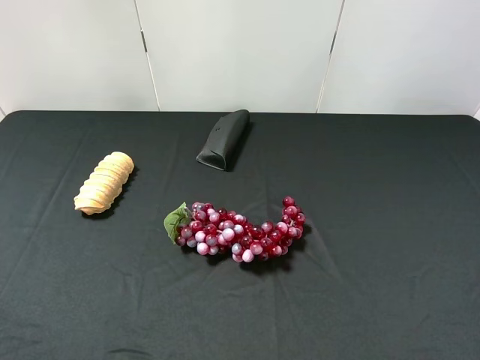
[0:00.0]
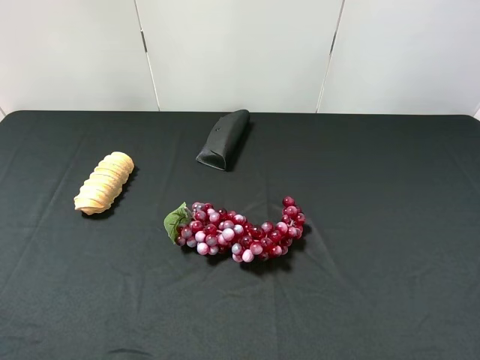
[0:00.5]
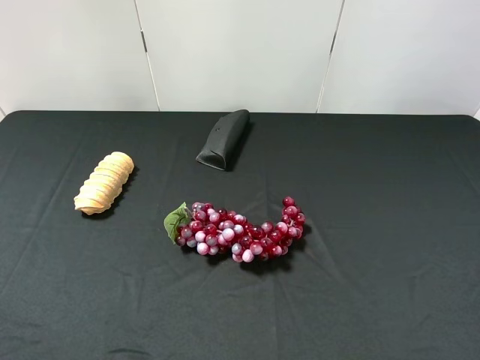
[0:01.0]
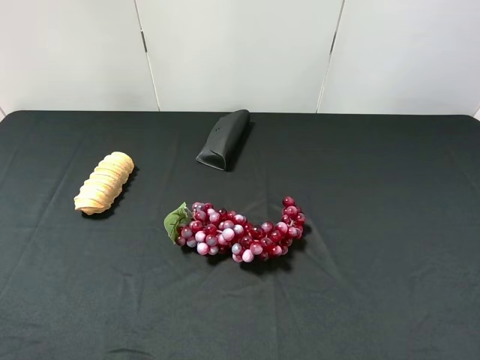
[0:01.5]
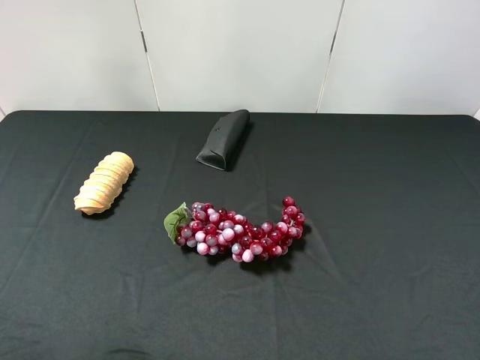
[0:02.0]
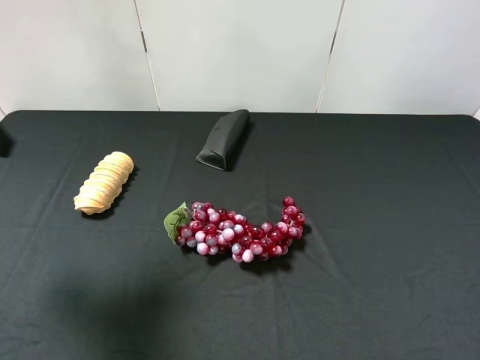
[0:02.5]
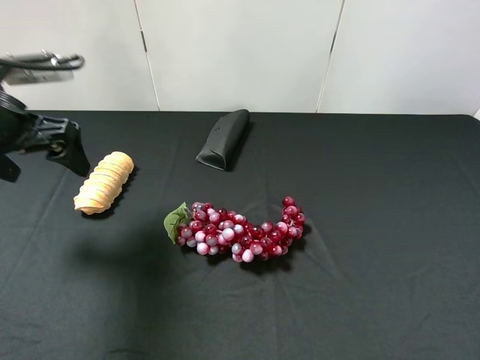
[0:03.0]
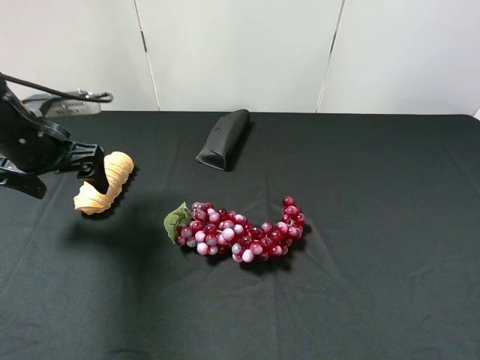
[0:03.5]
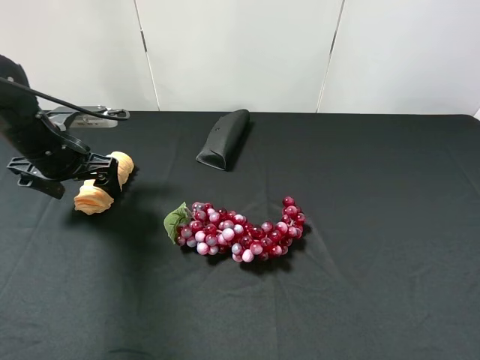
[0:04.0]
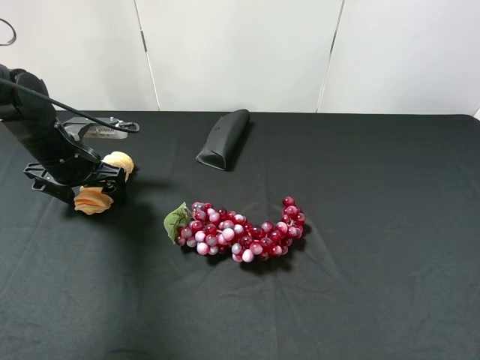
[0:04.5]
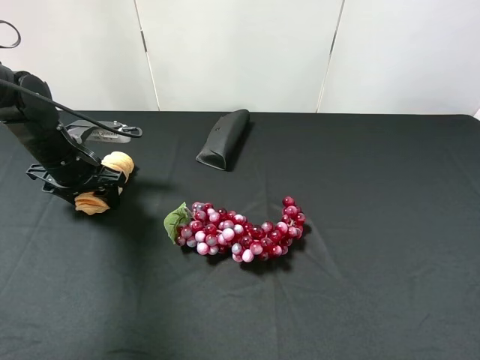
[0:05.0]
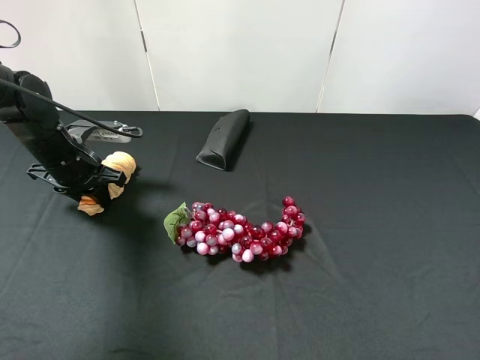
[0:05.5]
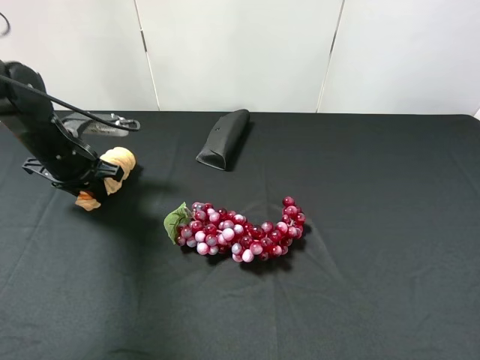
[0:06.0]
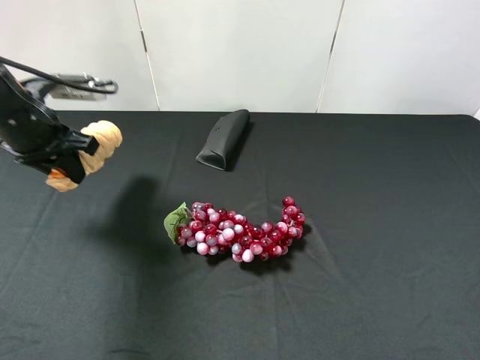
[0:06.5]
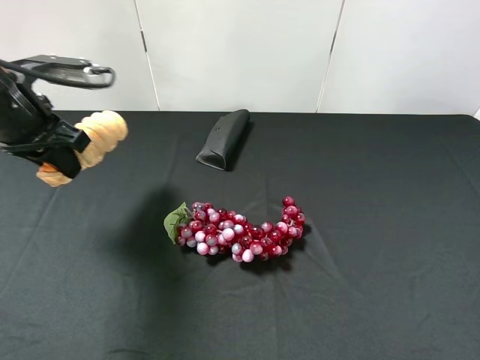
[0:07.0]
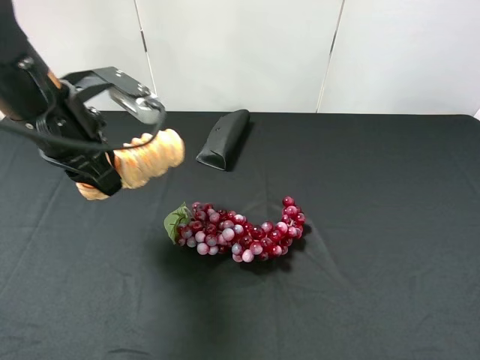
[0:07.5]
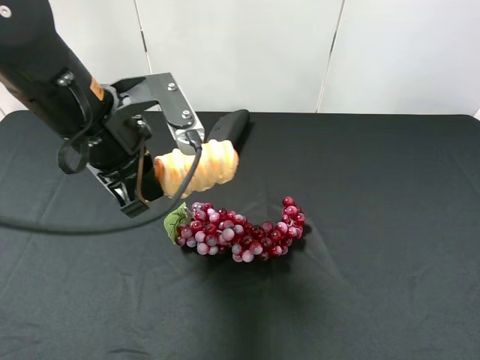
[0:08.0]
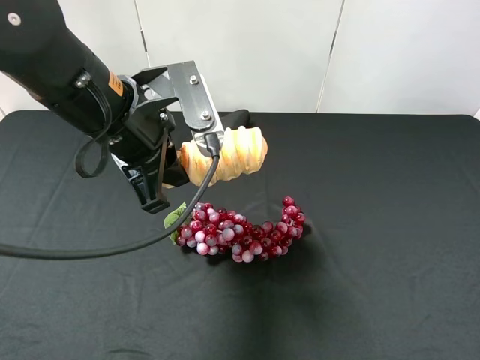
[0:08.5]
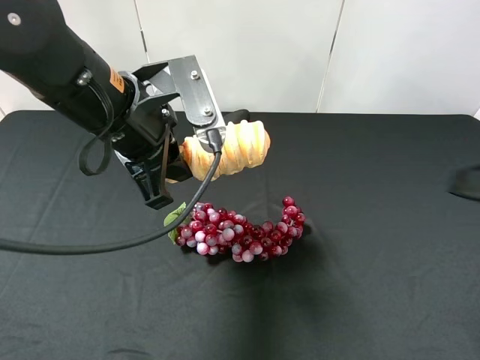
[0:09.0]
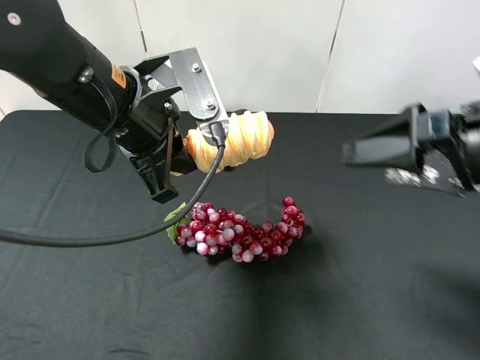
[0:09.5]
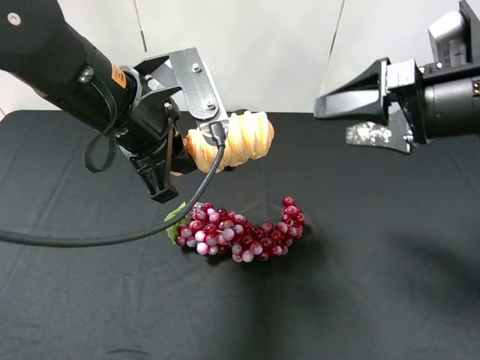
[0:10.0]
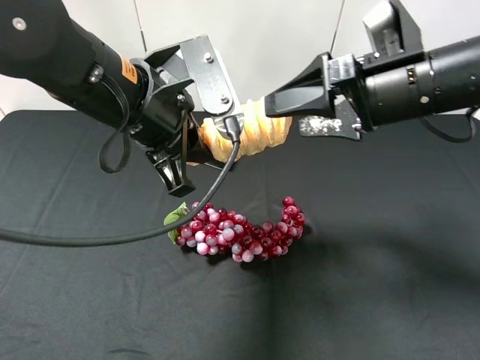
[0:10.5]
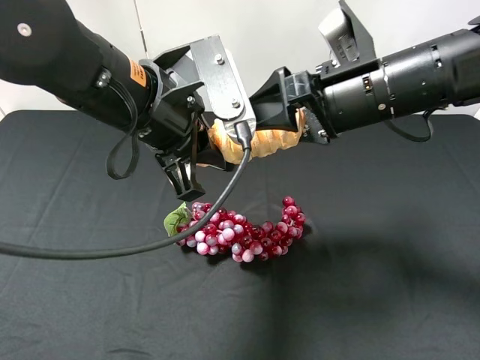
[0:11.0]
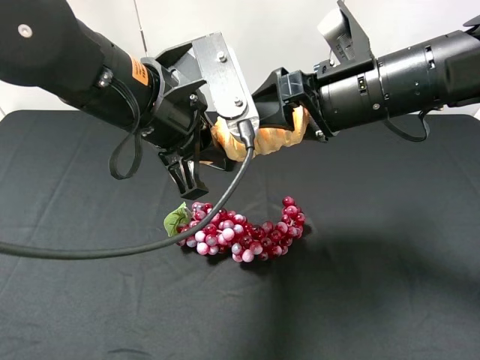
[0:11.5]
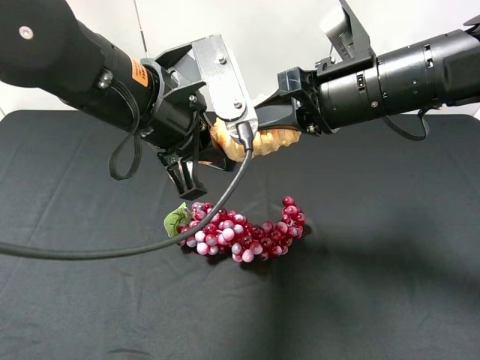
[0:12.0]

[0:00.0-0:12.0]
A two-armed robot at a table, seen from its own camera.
Task of the whole recording: use the left gripper to pick up the item and transfer it from the left gripper to the right gripper.
0:02.0 to 0:04.0: The left gripper is displaced forward and downward by about 30 cm.
0:04.0 to 0:06.0: The left gripper closes its fingers.
0:06.0 to 0:08.0: The left gripper is displaced to the right, upward and backward by roughly 20 cm.
0:08.0 to 0:10.0: The right gripper shifts about 25 cm forward.
0:10.0 to 0:12.0: The right gripper is displaced to the left by about 10 cm, and closes up.

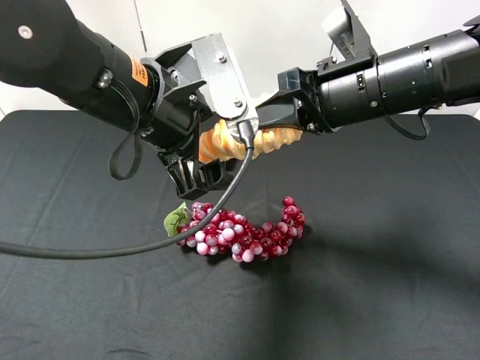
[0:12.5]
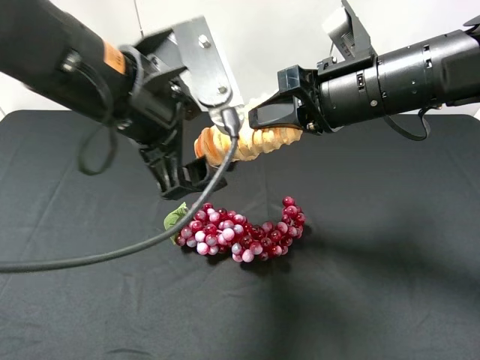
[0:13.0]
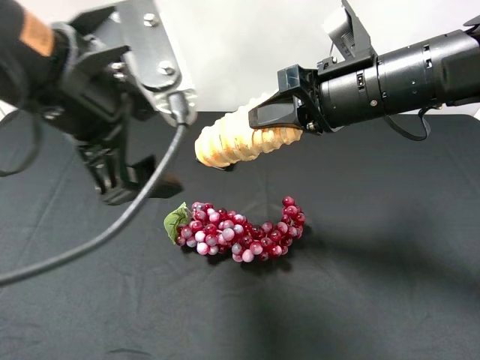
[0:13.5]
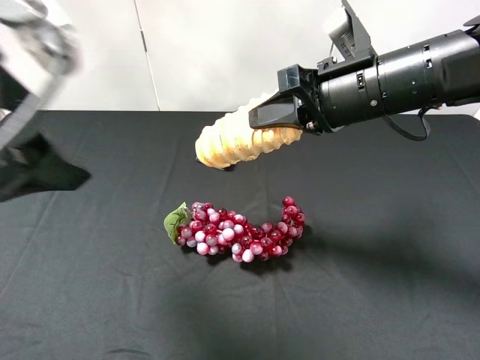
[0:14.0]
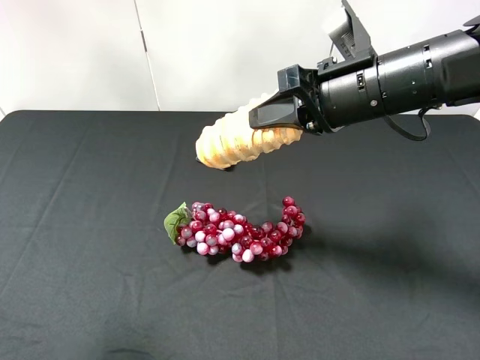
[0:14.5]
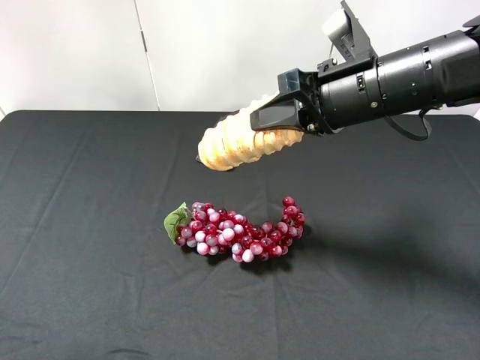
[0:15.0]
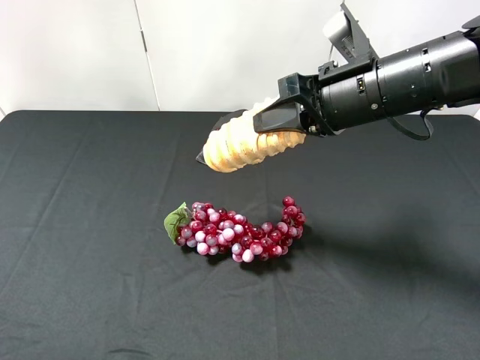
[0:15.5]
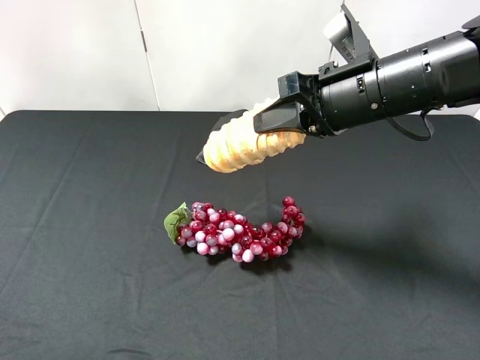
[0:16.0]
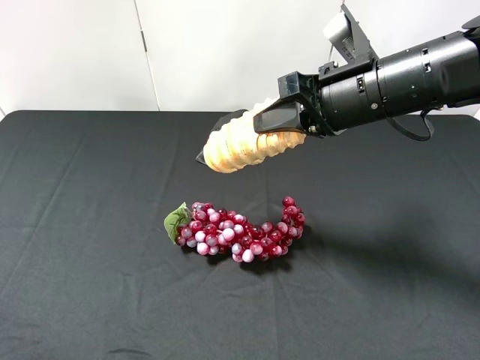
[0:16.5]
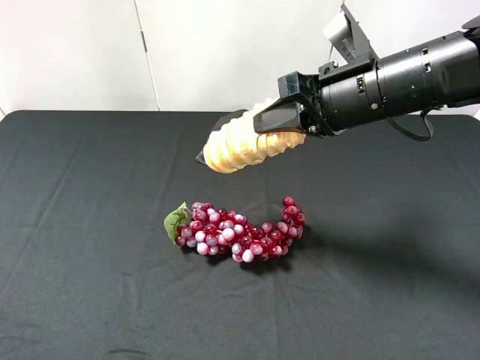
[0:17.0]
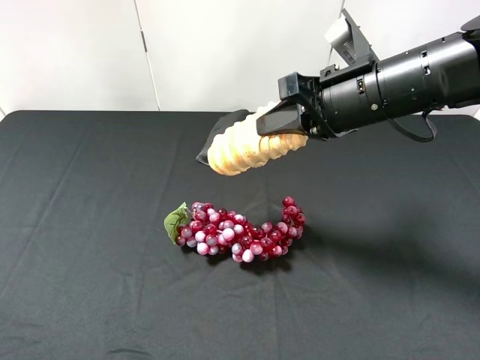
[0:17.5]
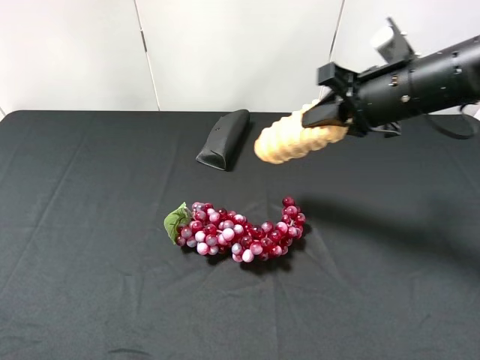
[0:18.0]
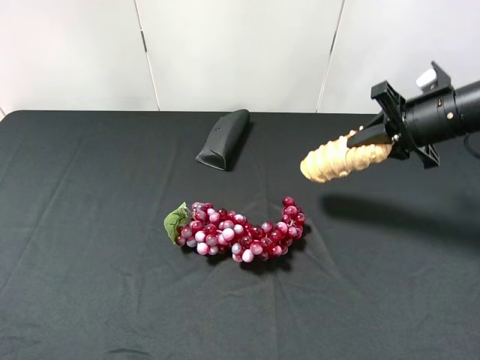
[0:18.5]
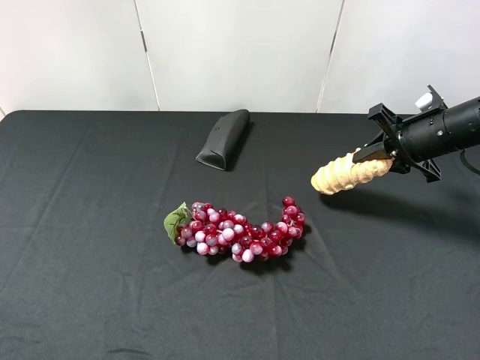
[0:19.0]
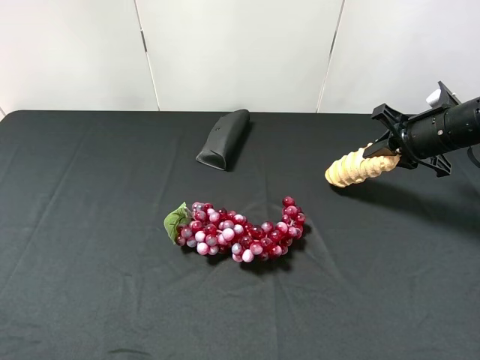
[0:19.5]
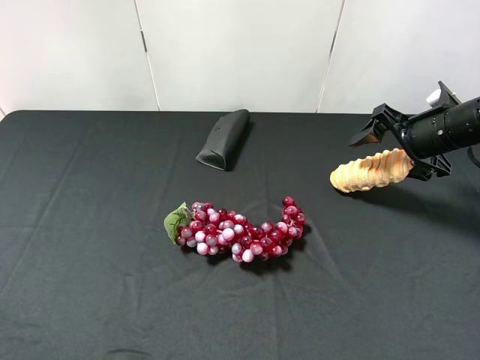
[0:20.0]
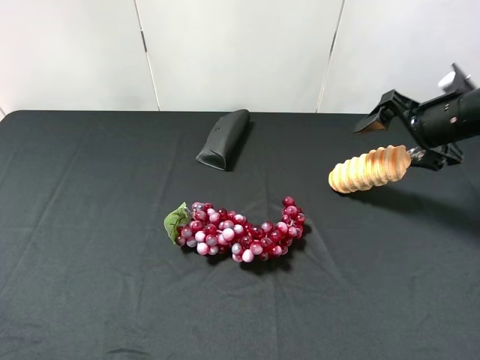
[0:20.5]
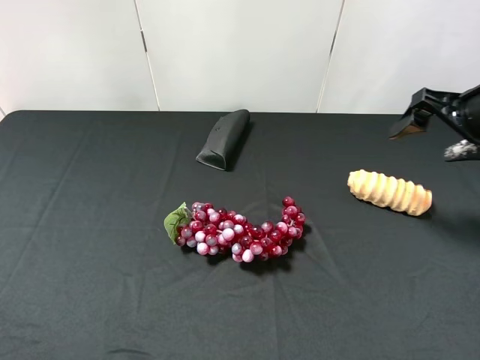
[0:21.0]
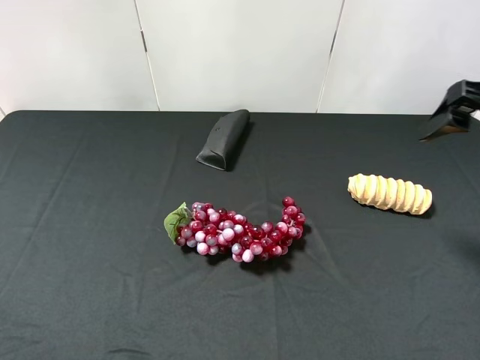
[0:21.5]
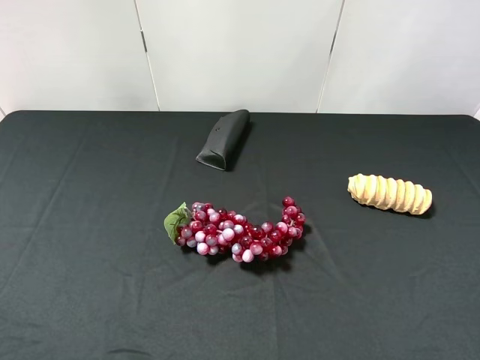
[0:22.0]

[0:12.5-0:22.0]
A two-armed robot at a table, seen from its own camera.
Task of the whole recording: use the left gripper to pick up the item and transfer it from the left gripper to the right gripper.
0:12.5 to 0:14.5: The left gripper travels to the left, backward and upward by roughly 25 cm.
0:14.5 to 0:16.5: The left gripper heads downward and backward, covering roughly 10 cm.
0:16.5 to 0:18.0: The right gripper shifts approximately 5 cm to the right.
0:18.0 to 0:20.0: The right gripper shifts roughly 15 cm to the right and downward, and opens its fingers.
0:20.0 to 0:22.0: The right gripper heads backward and upward, covering roughly 25 cm.

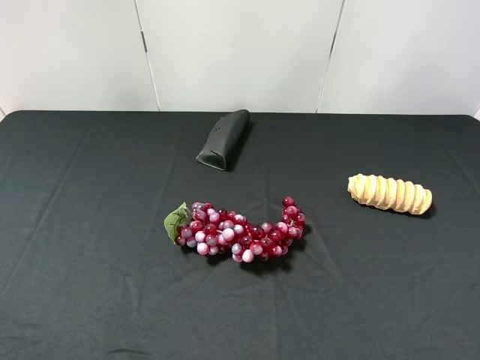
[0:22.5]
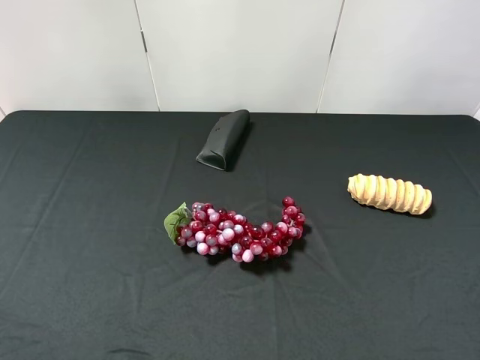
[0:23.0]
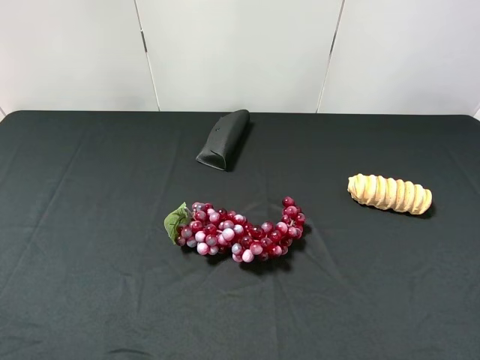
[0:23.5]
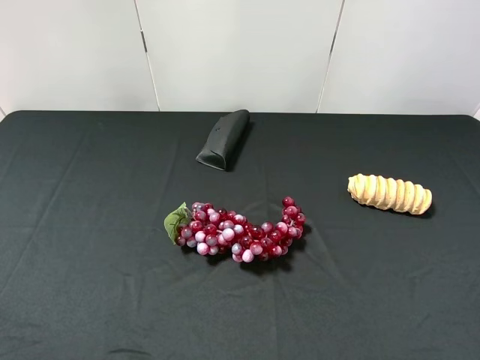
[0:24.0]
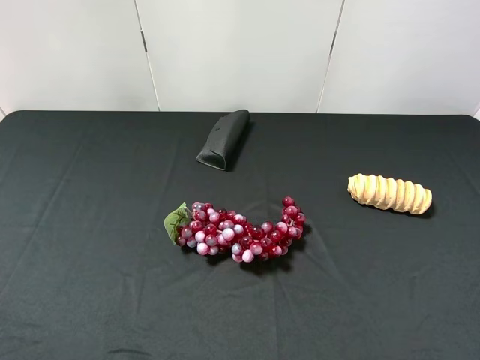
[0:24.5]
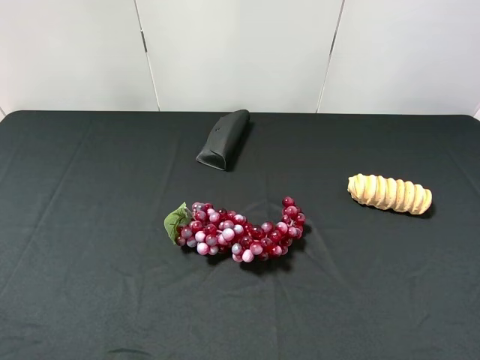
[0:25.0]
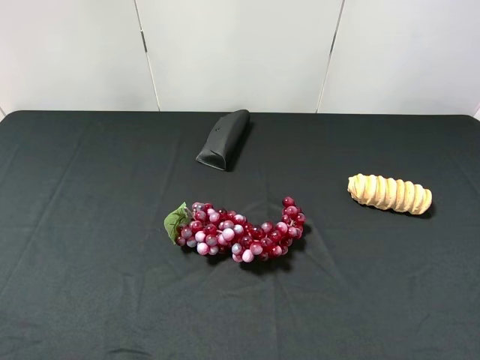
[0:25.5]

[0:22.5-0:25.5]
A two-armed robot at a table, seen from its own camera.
Task of the whole recording: use the left gripper to pick up the item and transfer it from the left gripper to the right gripper.
0:24.0 to 0:25.5: Both grippers stay about where they are.
